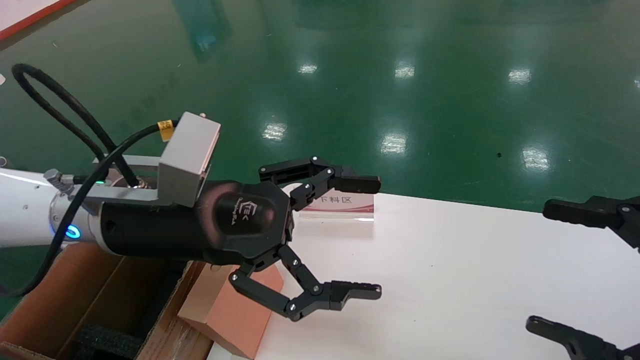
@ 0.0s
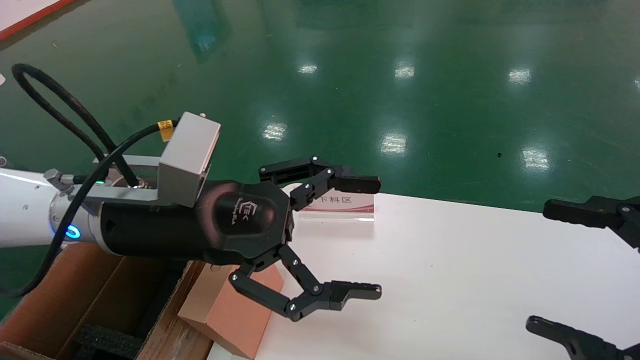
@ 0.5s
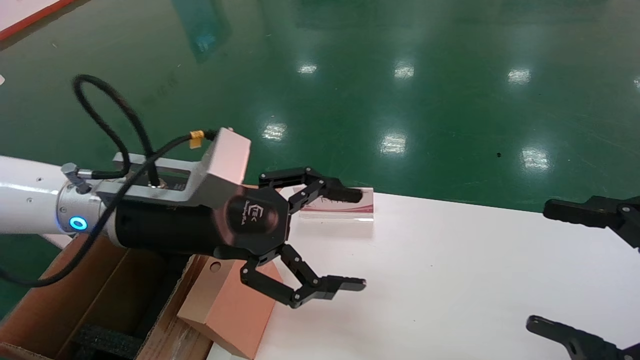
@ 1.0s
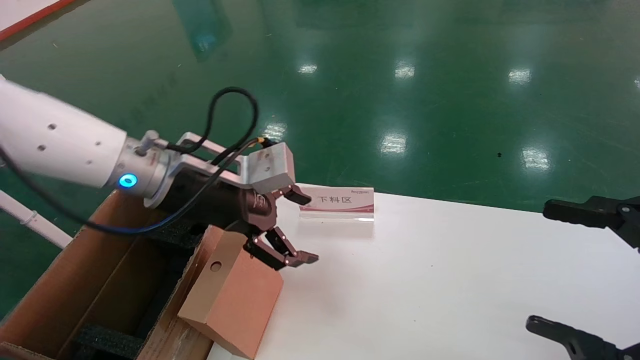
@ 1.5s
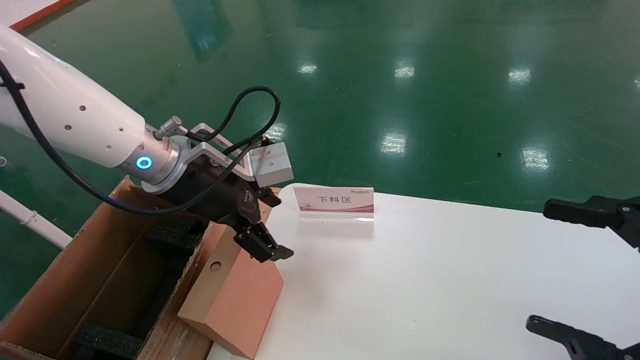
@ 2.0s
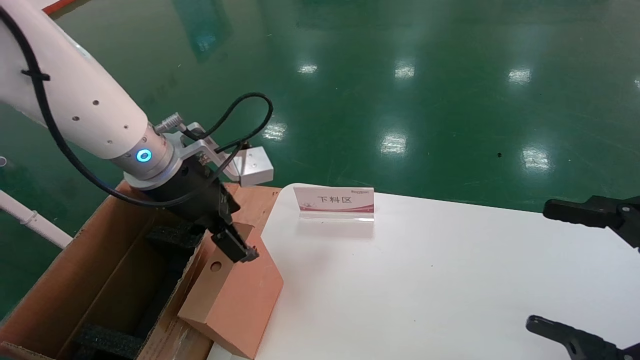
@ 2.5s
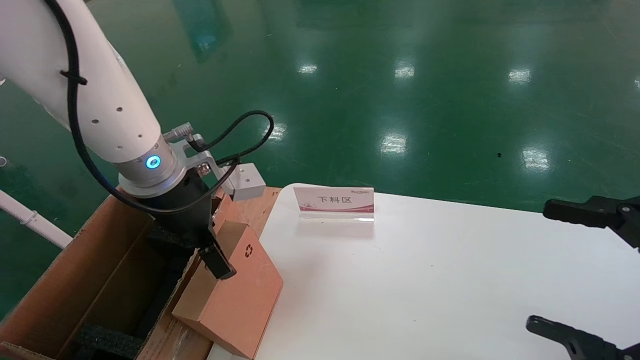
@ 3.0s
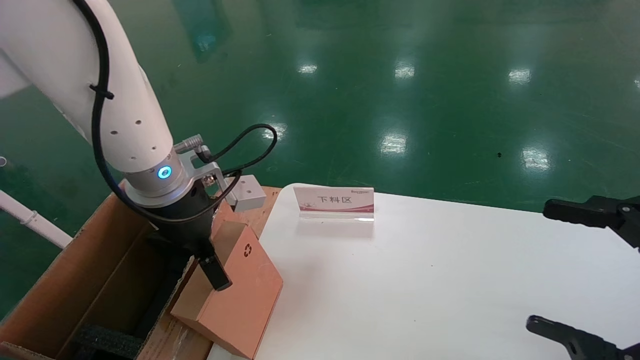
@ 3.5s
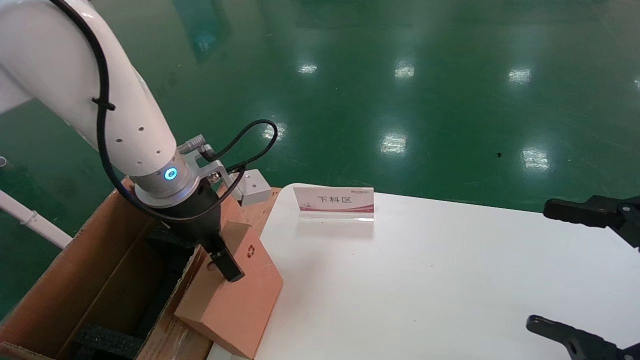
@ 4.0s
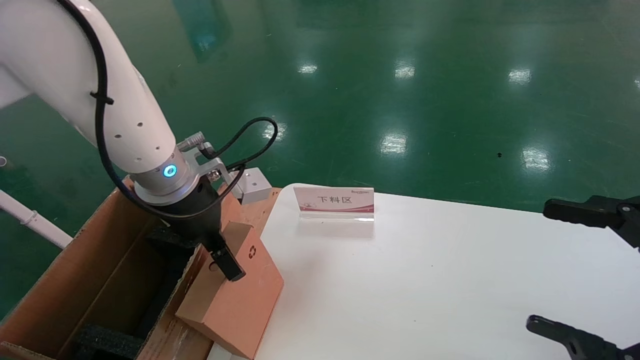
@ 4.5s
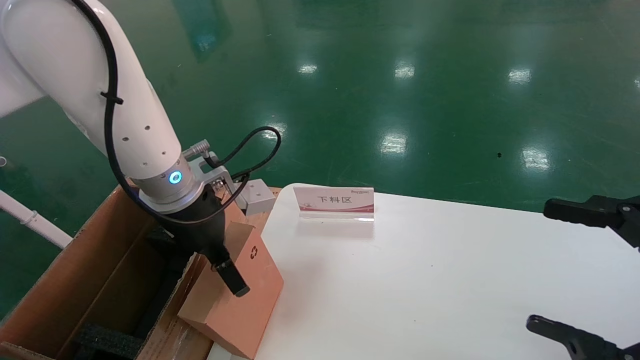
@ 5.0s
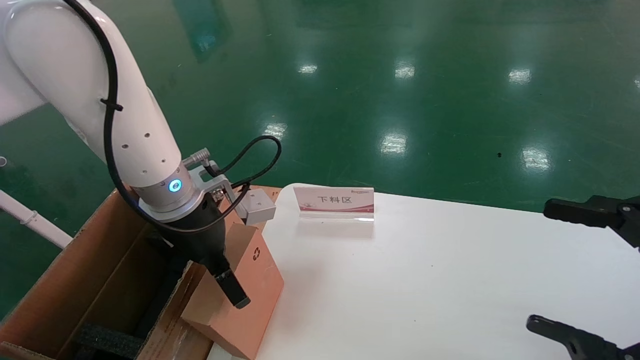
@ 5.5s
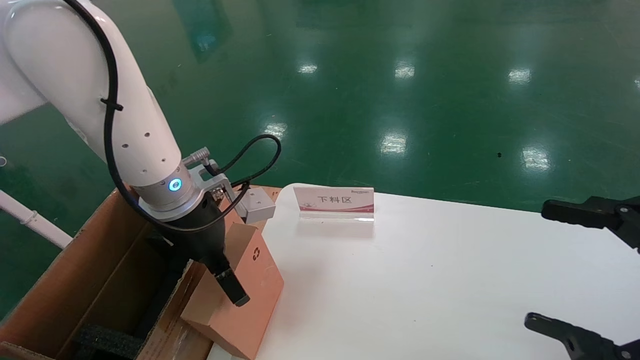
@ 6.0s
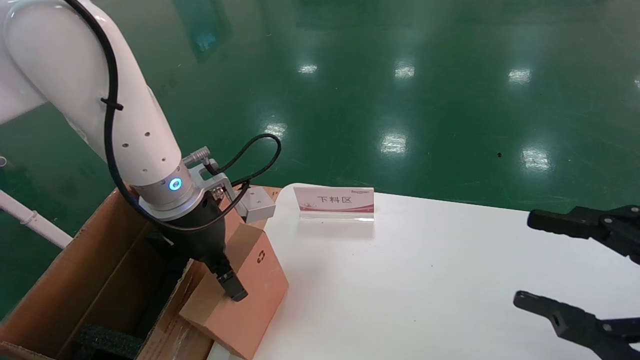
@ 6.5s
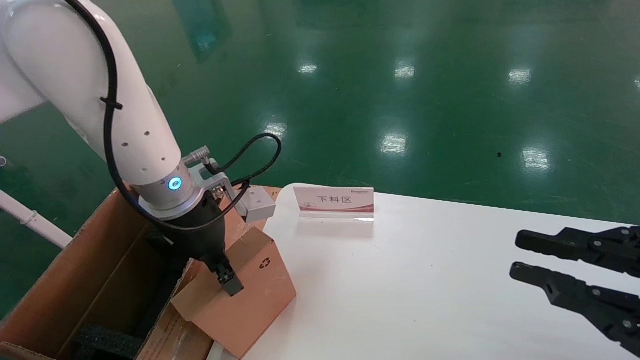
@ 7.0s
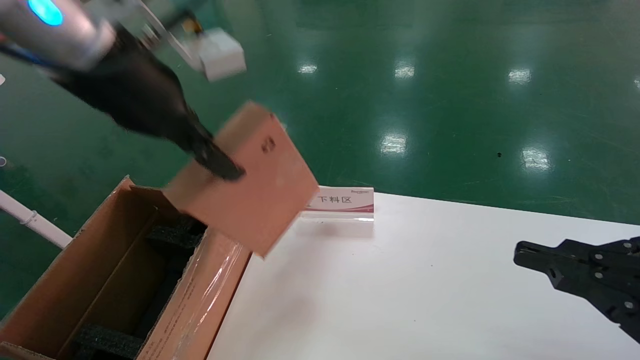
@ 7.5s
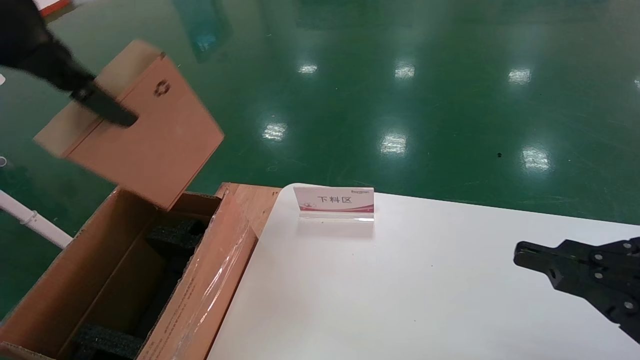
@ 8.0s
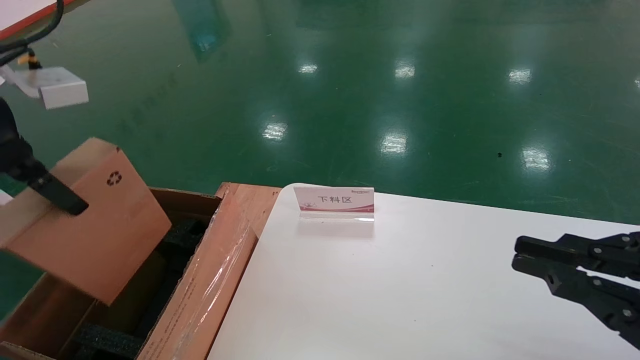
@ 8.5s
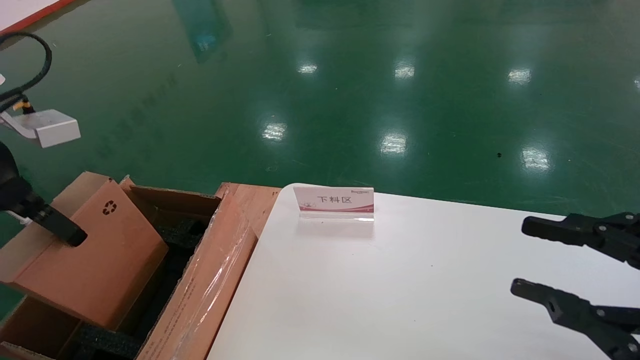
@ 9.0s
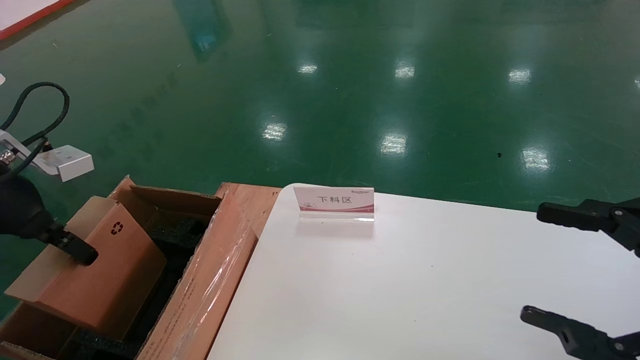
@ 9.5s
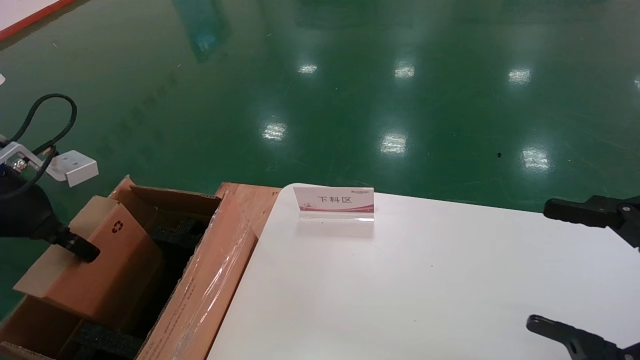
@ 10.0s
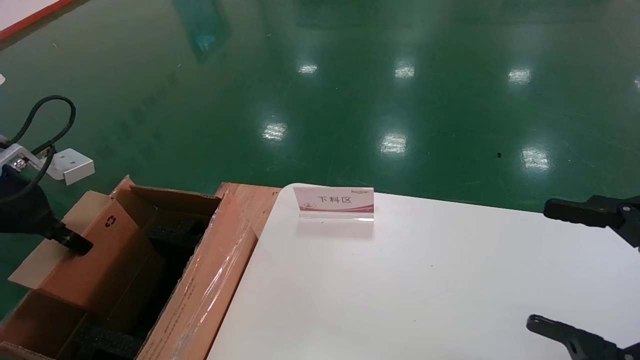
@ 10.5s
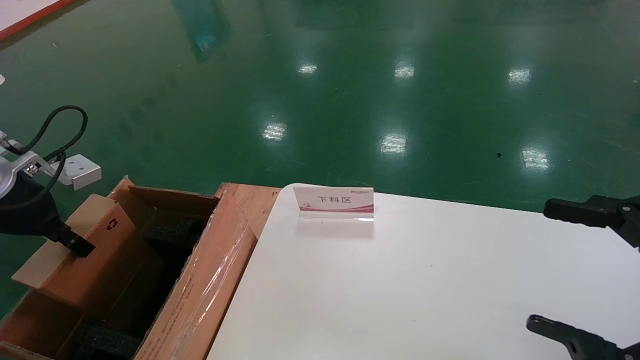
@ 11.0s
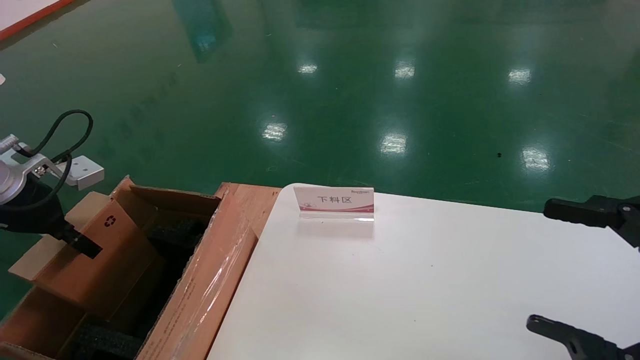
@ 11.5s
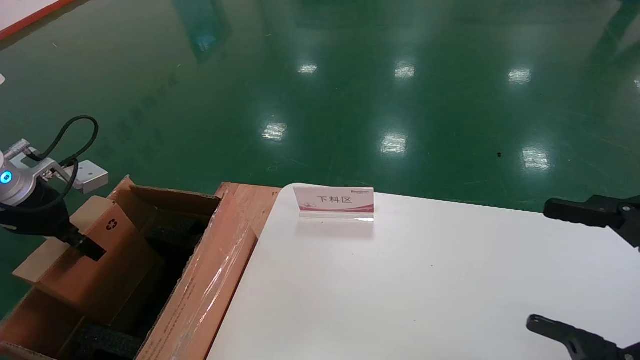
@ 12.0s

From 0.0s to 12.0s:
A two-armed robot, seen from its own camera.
Task of the whole recording: pick up the small cardboard box and load it into the large cardboard box.
Step, from 1.0s to 7.0s: Pick up the mouse and power cord box.
From 0.0s to 2.0s: The left gripper is displaced forward by about 10 cm.
From 4.0s to 6.0s: The grippers make only small movements.
From 6.0s to 8.0s: The left gripper moves upward, backward and to the left, about 25 cm, and closes up; the right gripper closes.
From 8.0s to 10.0s: The left gripper is displaced downward and to the left by approximately 20 cm; the right gripper opens its fingers.
From 10.0s to 12.0s: The left gripper moves about 5 cm.

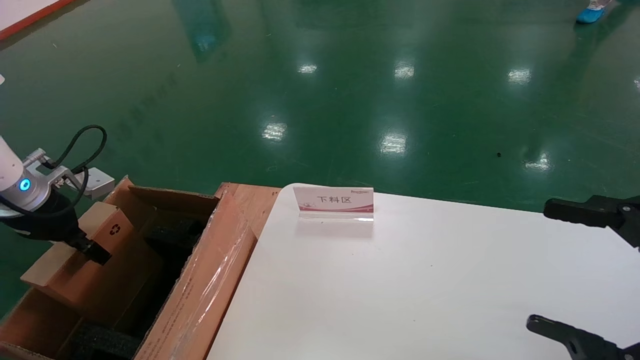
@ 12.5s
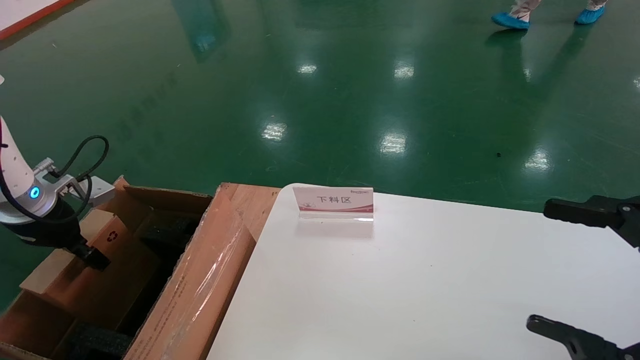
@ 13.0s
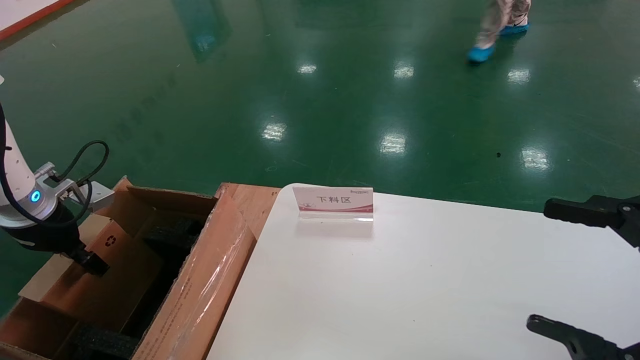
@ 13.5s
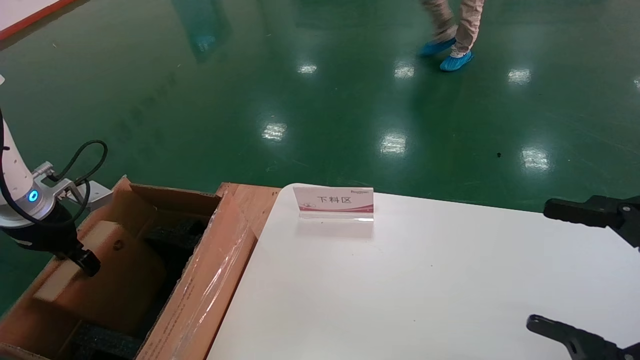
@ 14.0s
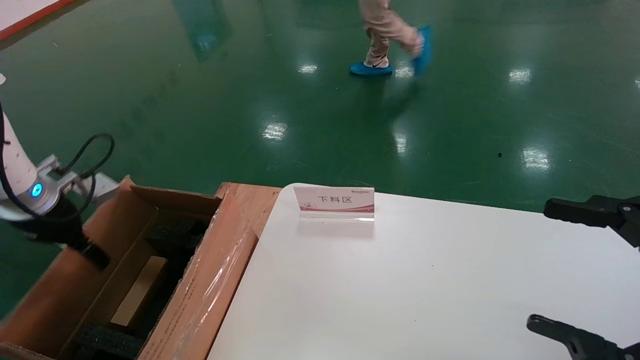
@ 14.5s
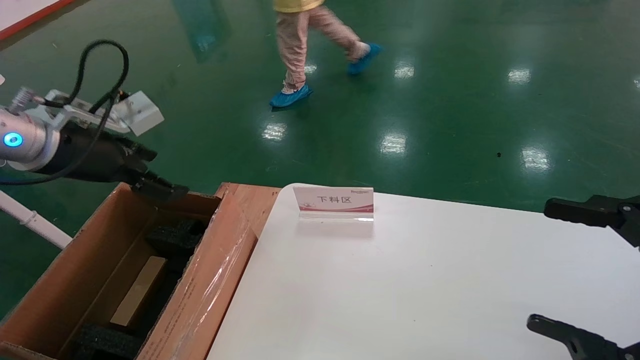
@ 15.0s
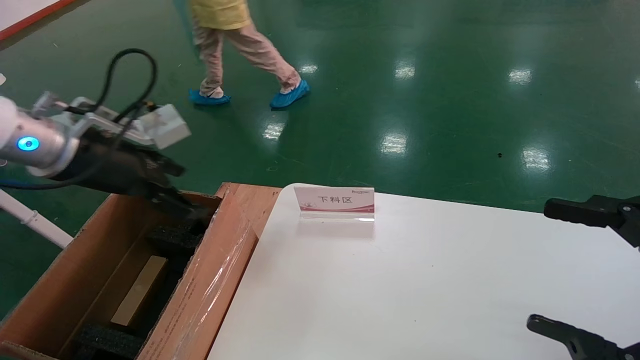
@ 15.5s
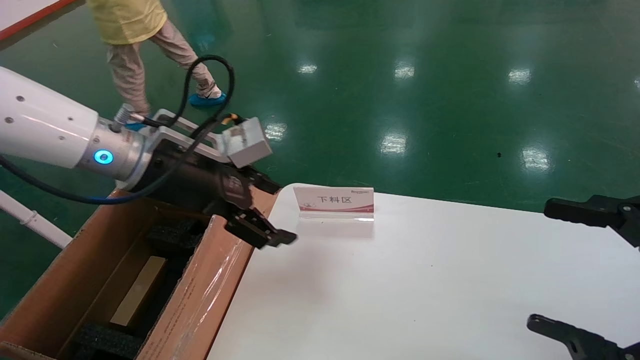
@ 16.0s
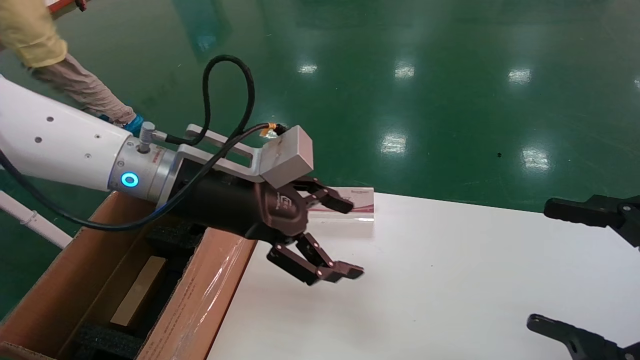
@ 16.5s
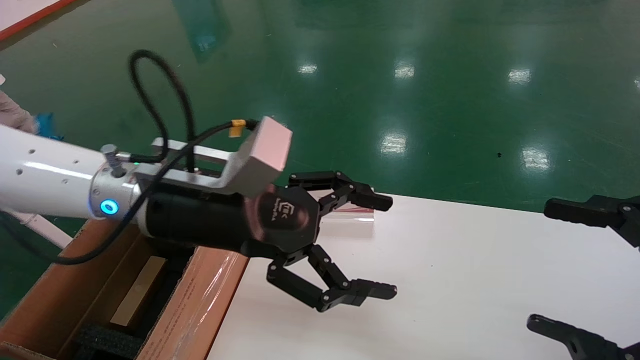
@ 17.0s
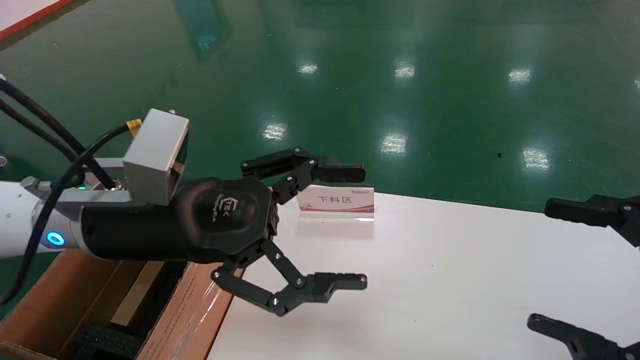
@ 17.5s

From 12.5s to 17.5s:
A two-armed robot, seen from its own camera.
Task of the whole recording: pick up the small cardboard box and load it into the large cardboard box.
From 12.5s to 15.0s: The left gripper moves to the right and upward, about 10 cm, and opens its fingers.
From 15.0s to 17.5s: The left gripper goes roughly 20 cm to the right.
